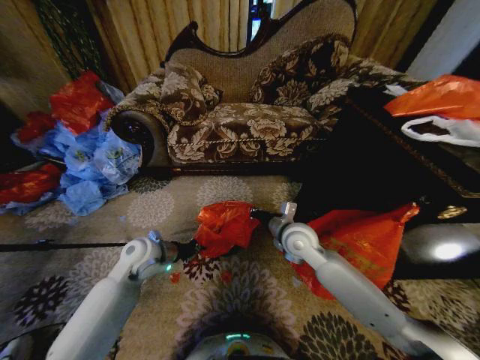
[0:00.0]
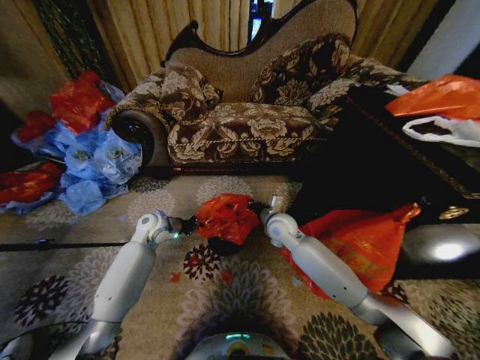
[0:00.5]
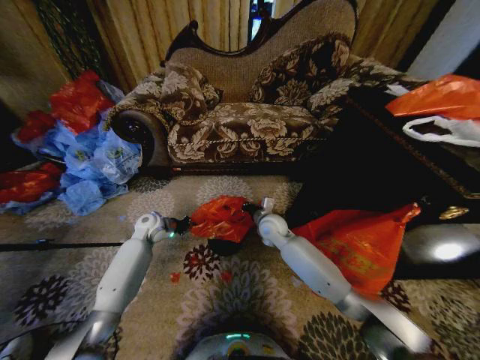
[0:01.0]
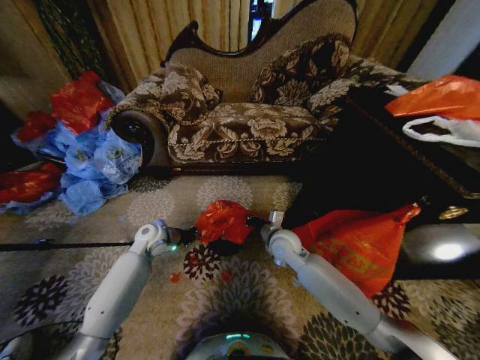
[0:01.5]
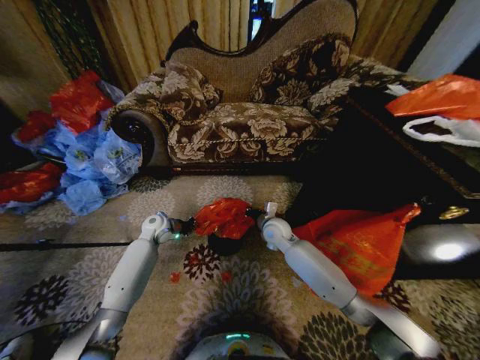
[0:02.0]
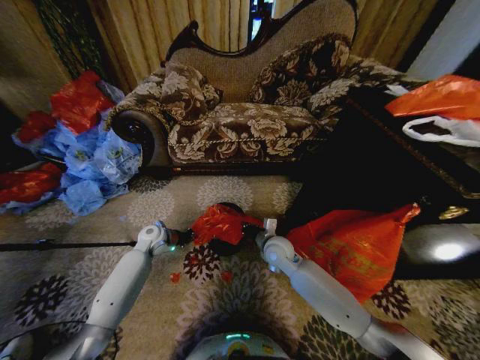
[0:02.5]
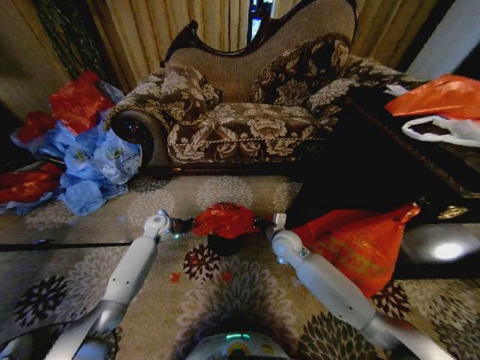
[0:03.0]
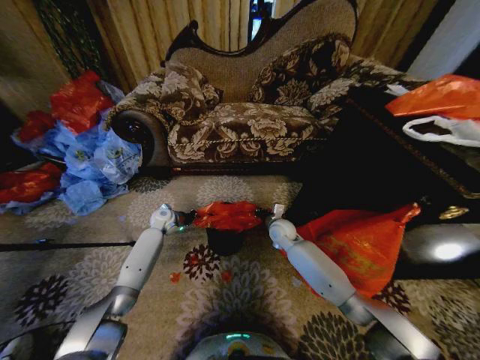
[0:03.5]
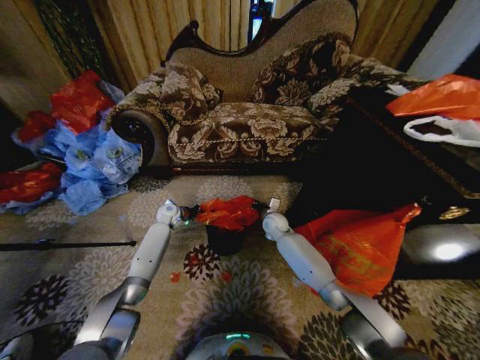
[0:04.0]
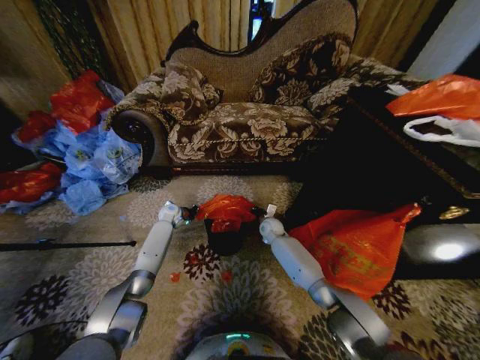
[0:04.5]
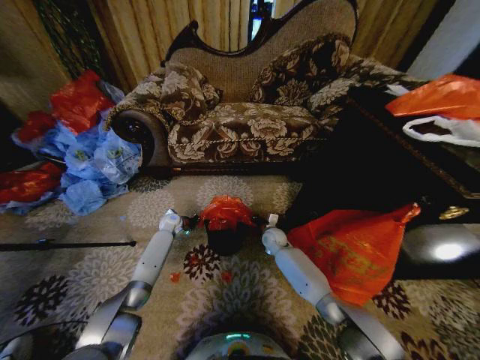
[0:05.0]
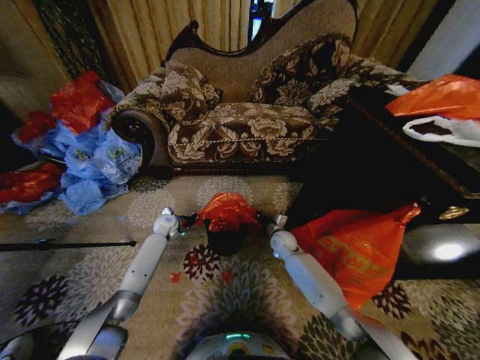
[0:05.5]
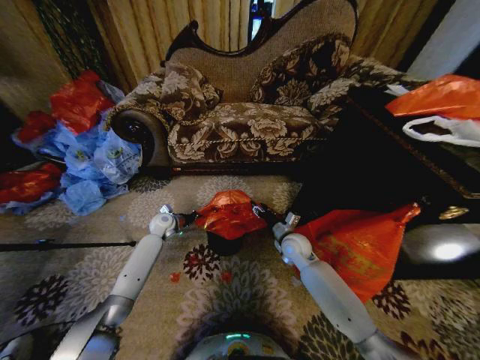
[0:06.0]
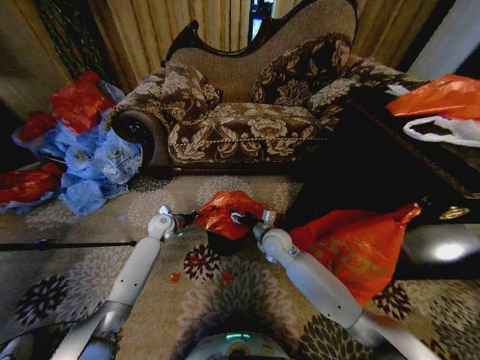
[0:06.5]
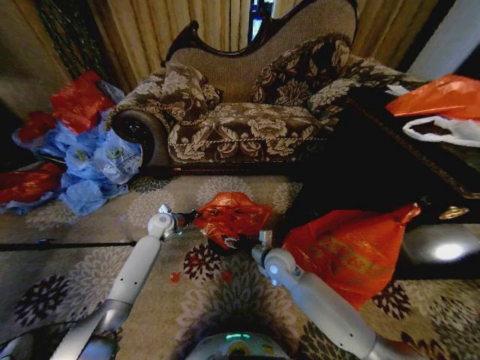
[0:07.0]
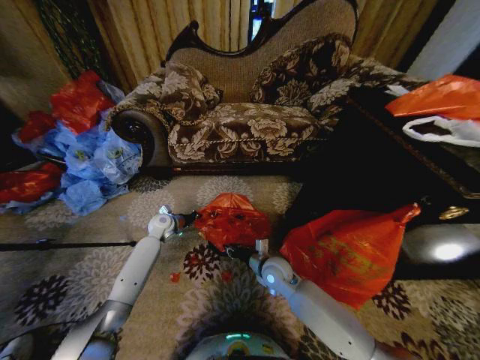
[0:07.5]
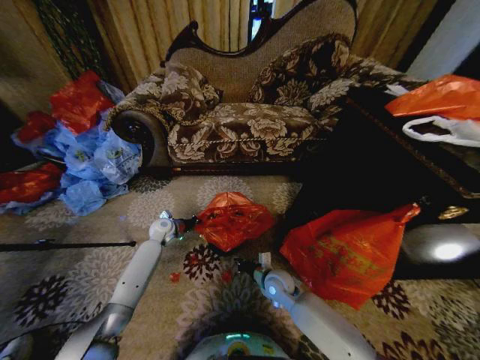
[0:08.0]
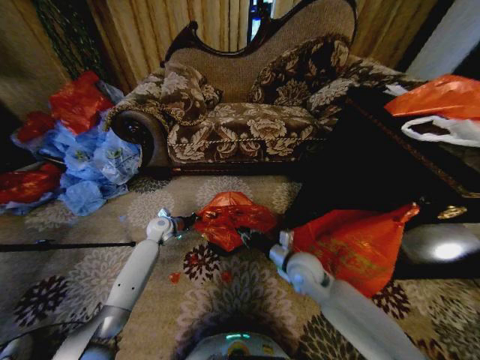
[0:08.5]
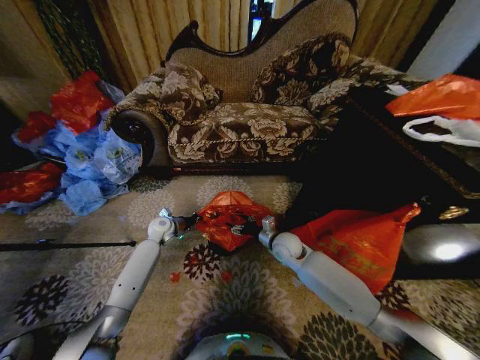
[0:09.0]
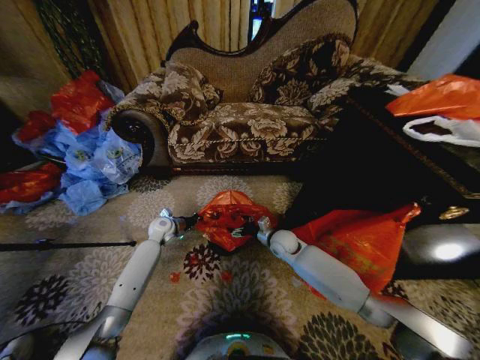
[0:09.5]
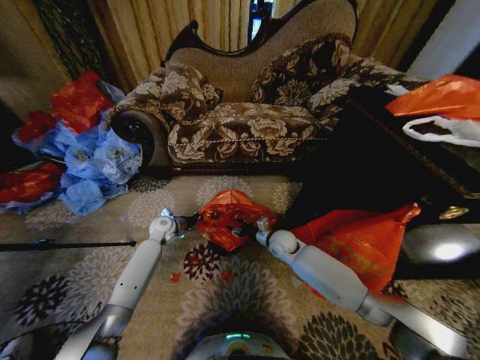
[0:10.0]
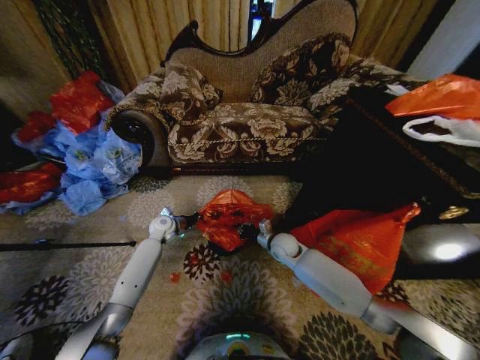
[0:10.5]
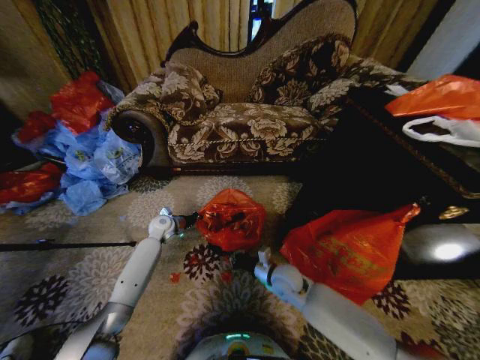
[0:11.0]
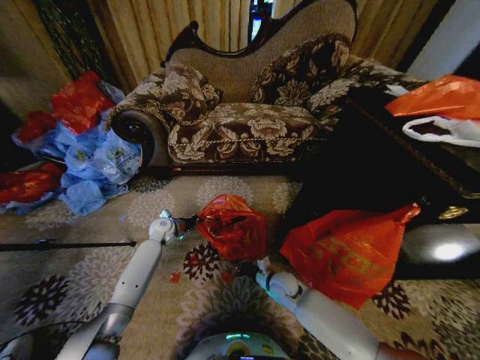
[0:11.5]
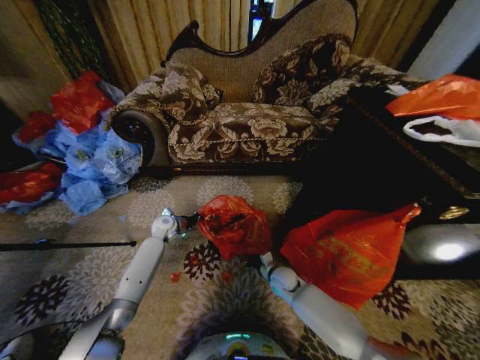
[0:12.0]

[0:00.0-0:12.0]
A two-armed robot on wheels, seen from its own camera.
Task of the whole recording: Place a garbage bag over the trash bin.
0:00.0 to 0:02.0: The left gripper travels forward and downward by some 15 cm. Meanwhile the right gripper moves forward and backward over some 10 cm, changing direction 2 times.
0:02.0 to 0:04.0: Both grippers travel together forward, approximately 5 cm.
0:04.0 to 0:06.0: The right gripper heads backward and to the right, covering approximately 10 cm, and opens.
0:06.0 to 0:08.0: The right gripper shifts about 15 cm backward, downward and to the left, and closes its fingers.
0:08.0 to 0:10.0: The right gripper shifts approximately 15 cm forward and upward, and opens up.
0:10.0 to 0:12.0: The right gripper heads downward and backward, covering roughly 15 cm, and closes.

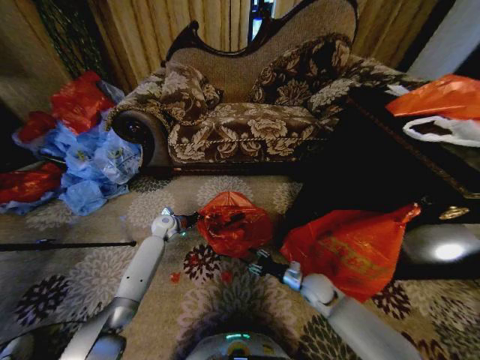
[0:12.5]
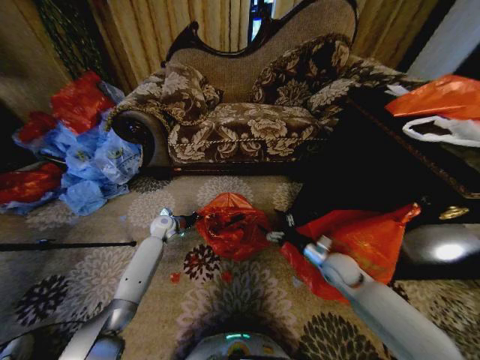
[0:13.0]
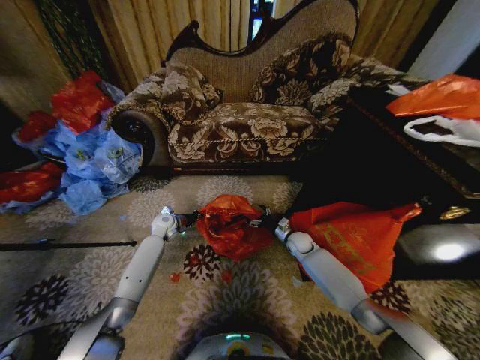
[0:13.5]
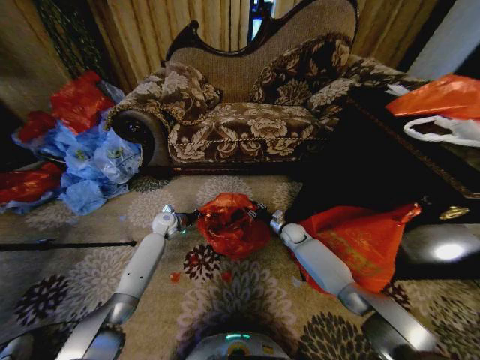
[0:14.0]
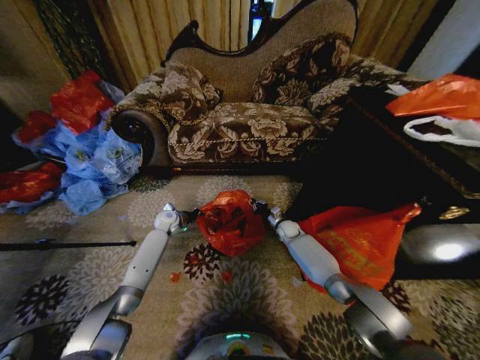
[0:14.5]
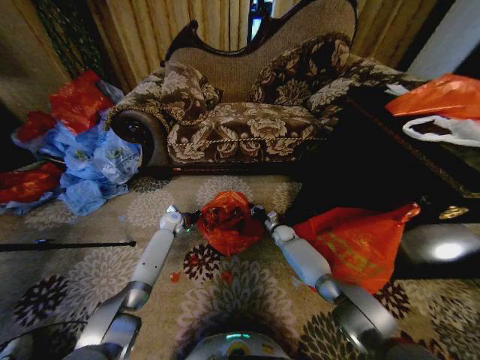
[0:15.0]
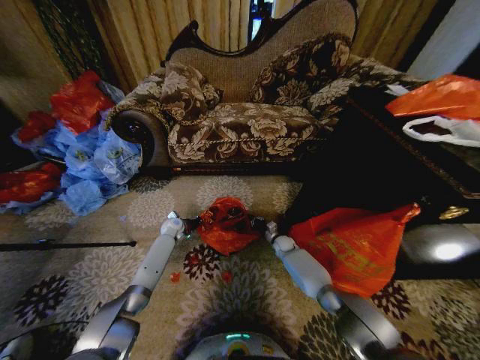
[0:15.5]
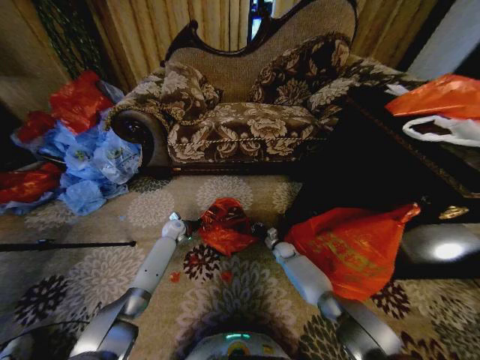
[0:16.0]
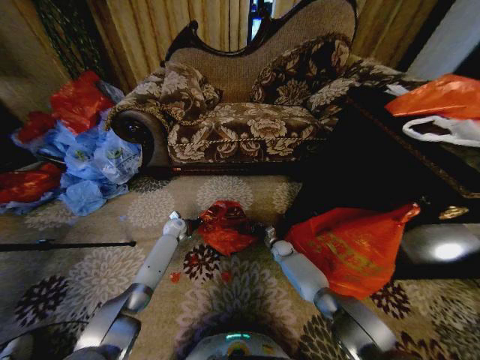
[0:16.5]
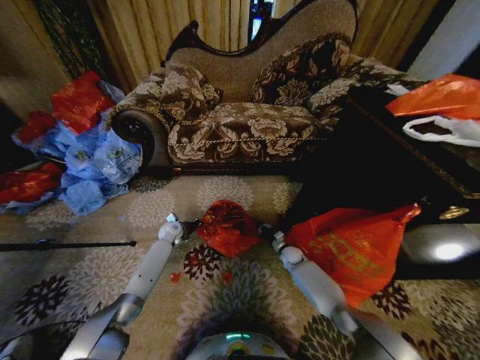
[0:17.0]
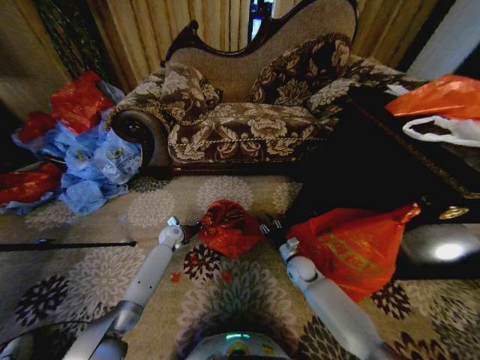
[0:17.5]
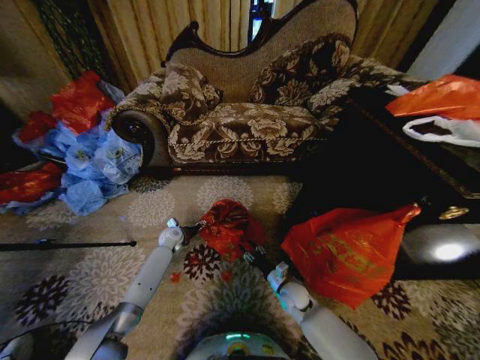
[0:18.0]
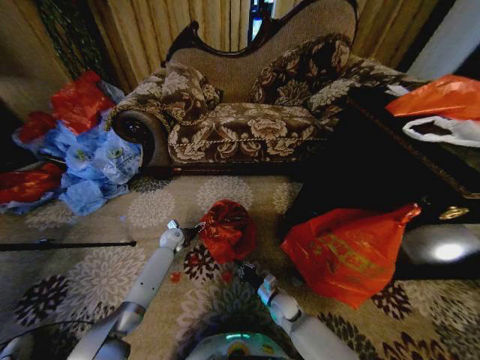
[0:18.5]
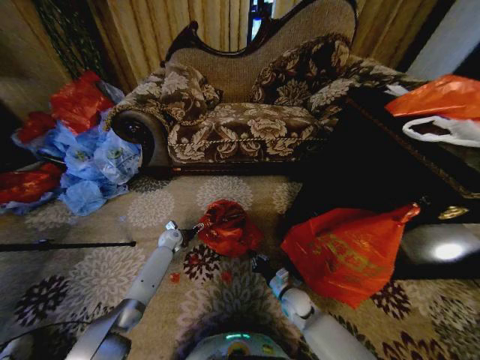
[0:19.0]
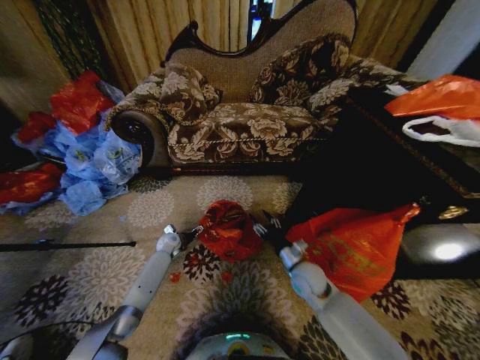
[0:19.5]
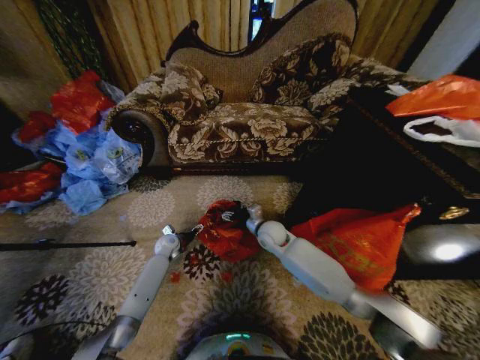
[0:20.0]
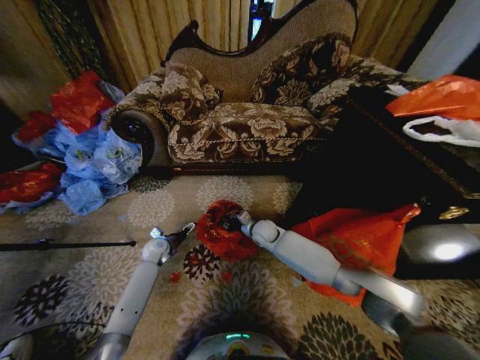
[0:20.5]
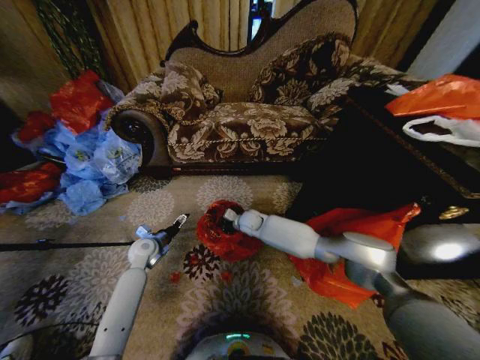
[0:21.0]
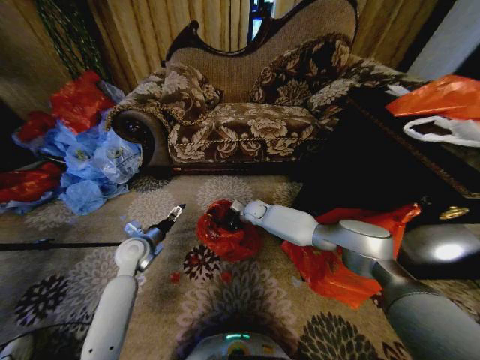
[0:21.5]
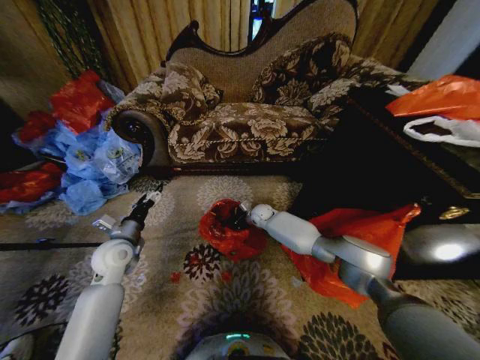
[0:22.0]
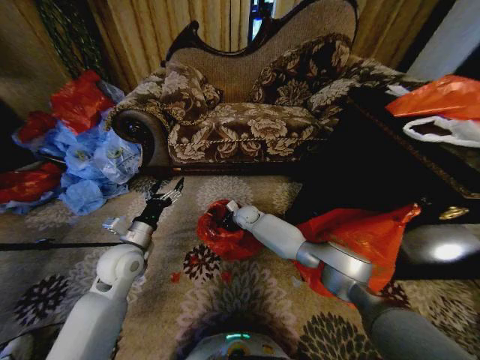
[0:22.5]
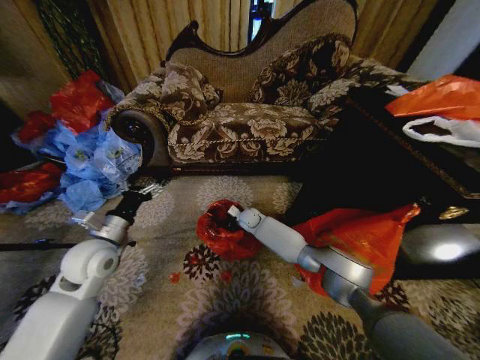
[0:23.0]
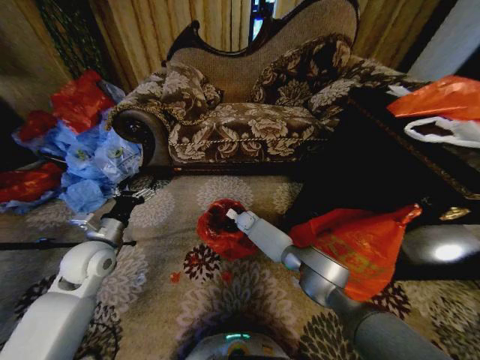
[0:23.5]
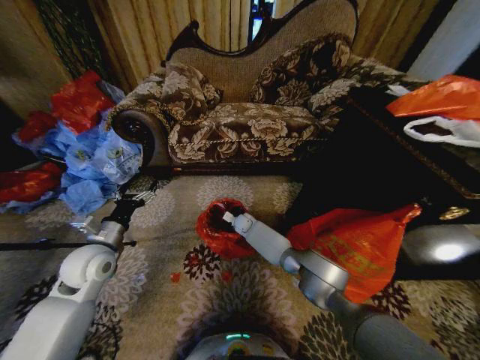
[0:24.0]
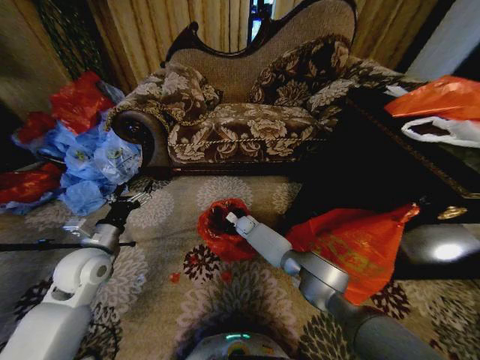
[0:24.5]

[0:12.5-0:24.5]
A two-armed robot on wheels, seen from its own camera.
Task of the whole recording: Place a garbage bag over the trash bin.
0:12.5 to 0:14.5: The right gripper heads forward, covering about 25 cm, and closes up.
0:14.5 to 0:16.5: The right gripper is displaced downward by roughly 10 cm; the left gripper shifts approximately 5 cm downward.
0:16.5 to 0:18.5: The right gripper moves backward, roughly 20 cm, and opens and closes again; the left gripper opens up.
0:18.5 to 0:20.5: The left gripper travels backward by approximately 5 cm. The right gripper heads forward and upward, covering some 25 cm, and opens, then closes again.
0:20.5 to 0:22.5: The right gripper is displaced forward and to the left by approximately 10 cm, and closes up. The left gripper is displaced upward and backward by approximately 20 cm.
0:22.5 to 0:24.5: The left gripper goes about 5 cm to the left; the right gripper heads downward, covering about 5 cm.

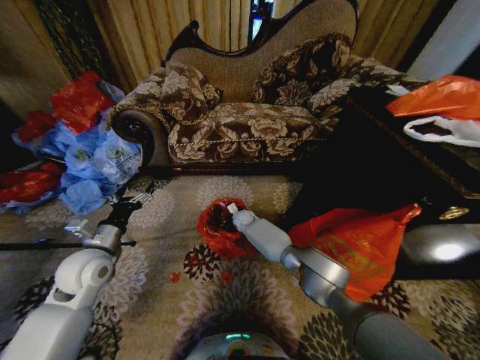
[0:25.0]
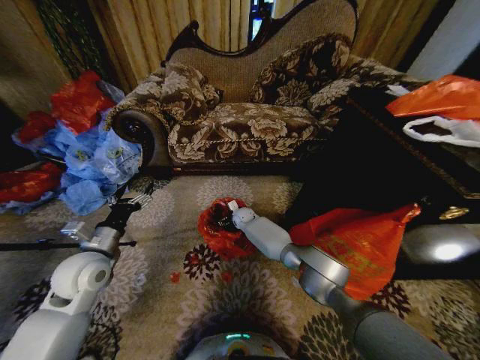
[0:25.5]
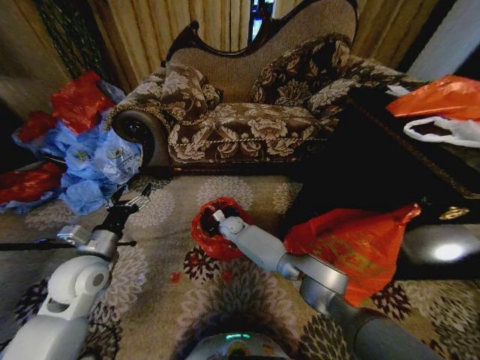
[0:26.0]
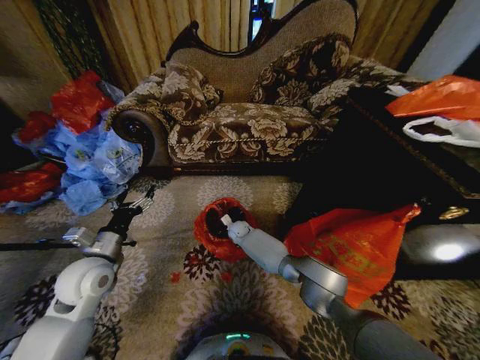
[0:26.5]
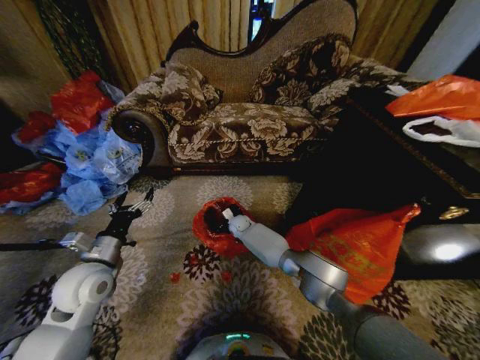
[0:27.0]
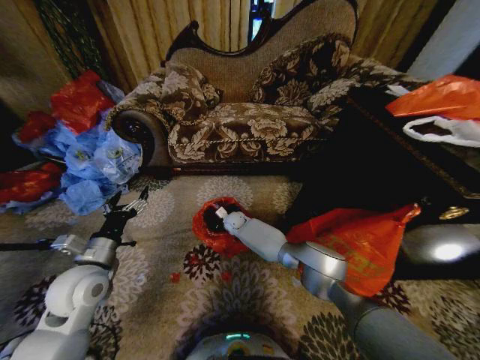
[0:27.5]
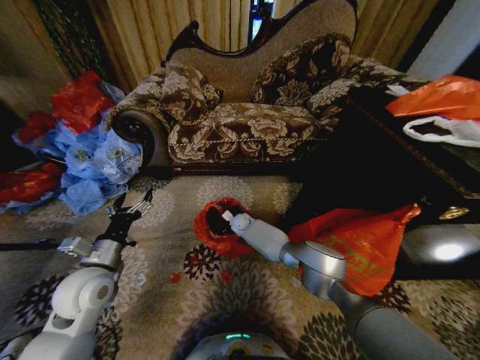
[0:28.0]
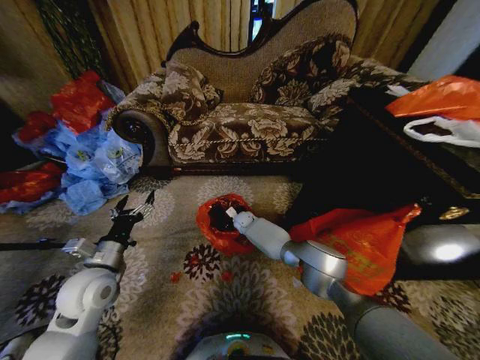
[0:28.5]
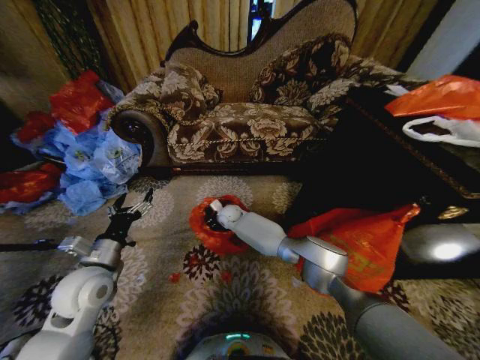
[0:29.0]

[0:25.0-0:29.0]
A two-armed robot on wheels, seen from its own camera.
Task of the whole recording: Place a garbage bag over the trash bin.
0:27.0 to 0:29.0: The right gripper travels upward by about 5 cm.
